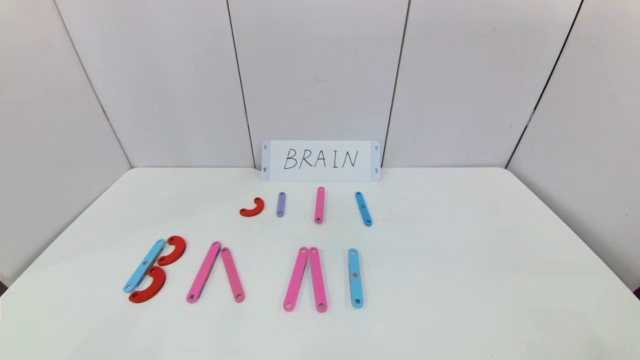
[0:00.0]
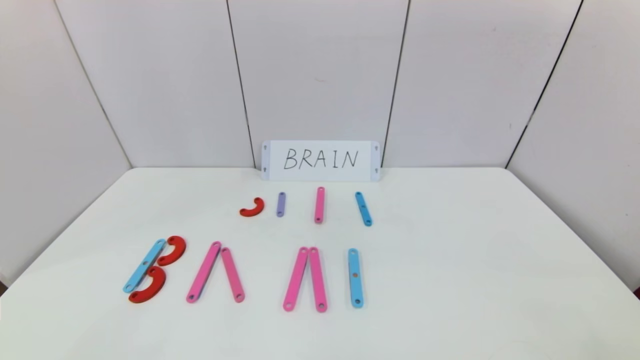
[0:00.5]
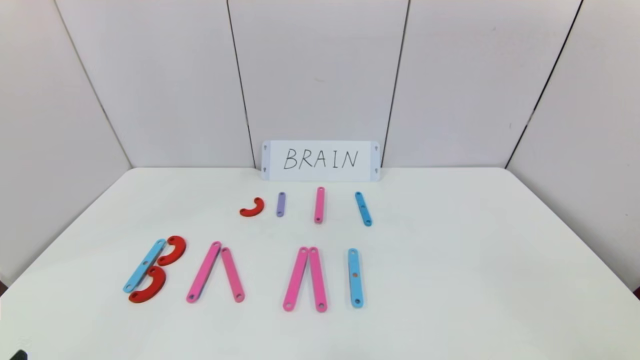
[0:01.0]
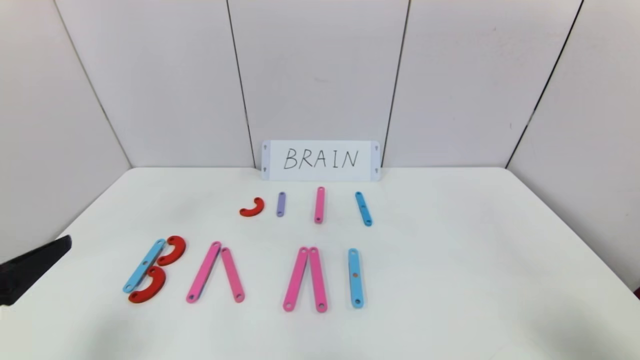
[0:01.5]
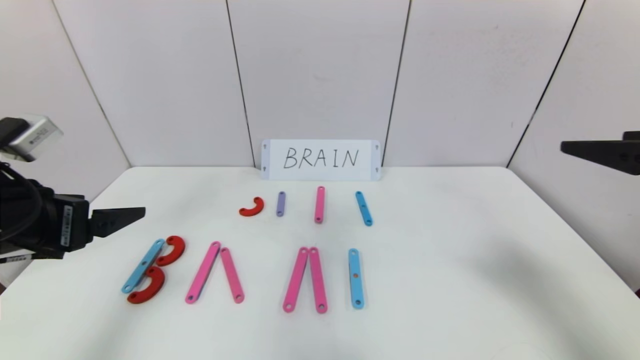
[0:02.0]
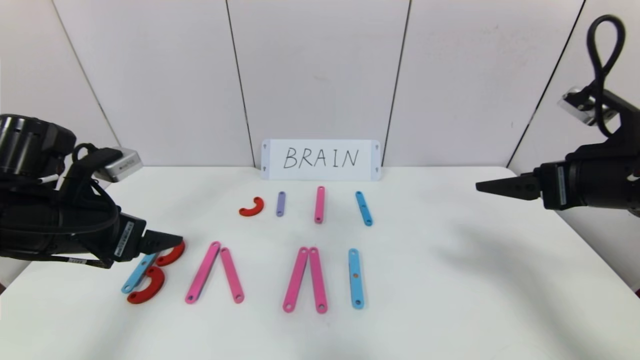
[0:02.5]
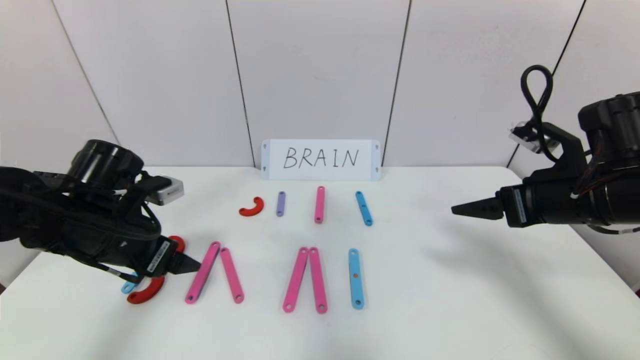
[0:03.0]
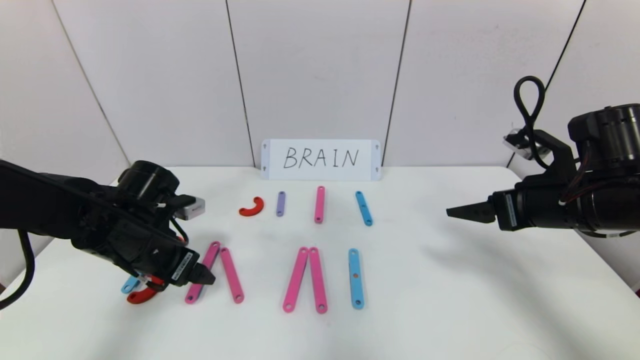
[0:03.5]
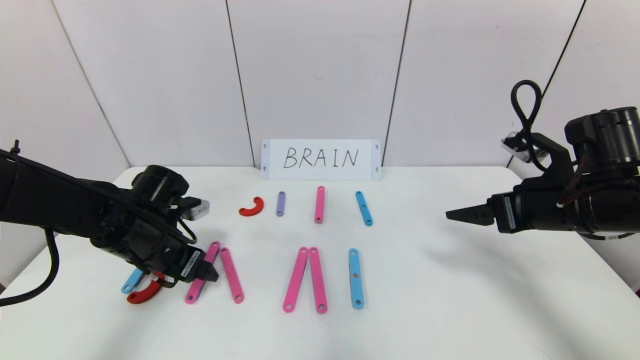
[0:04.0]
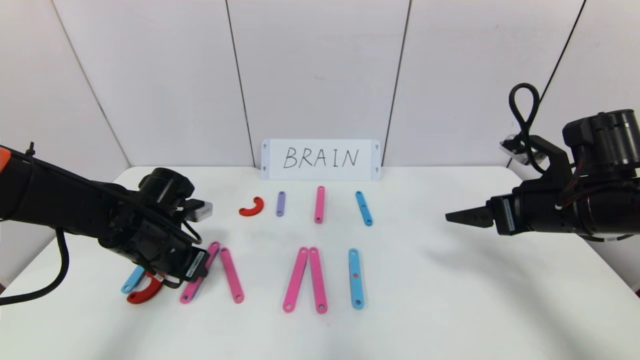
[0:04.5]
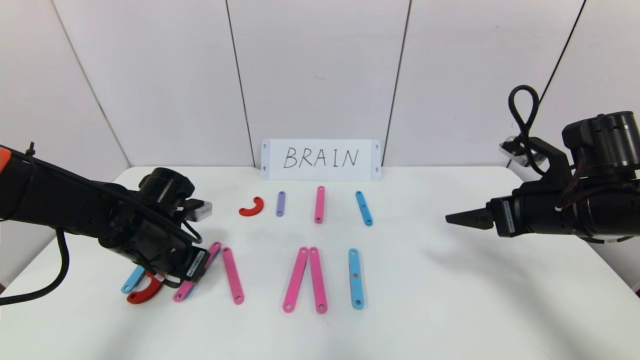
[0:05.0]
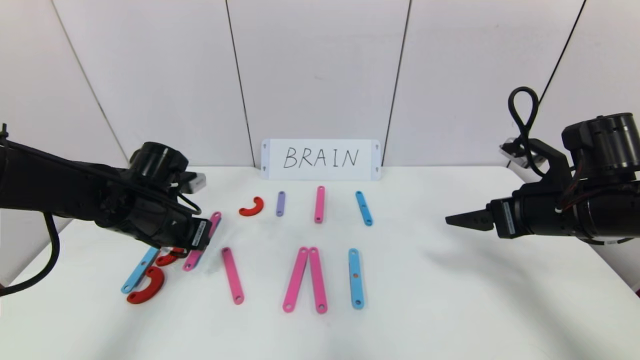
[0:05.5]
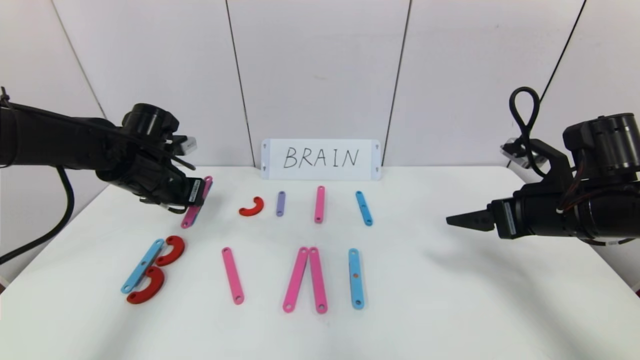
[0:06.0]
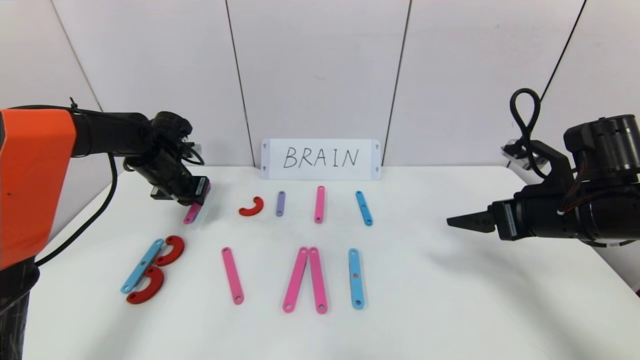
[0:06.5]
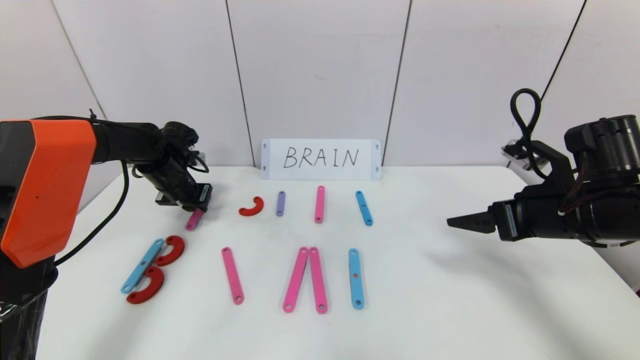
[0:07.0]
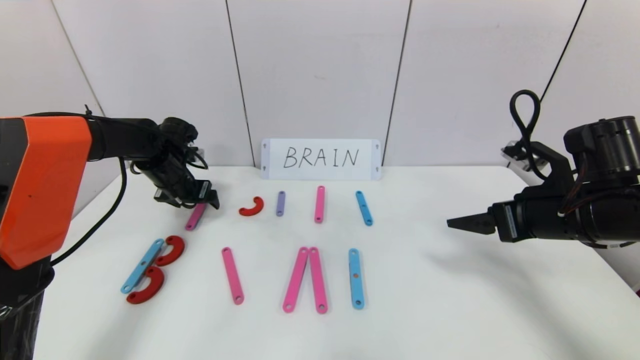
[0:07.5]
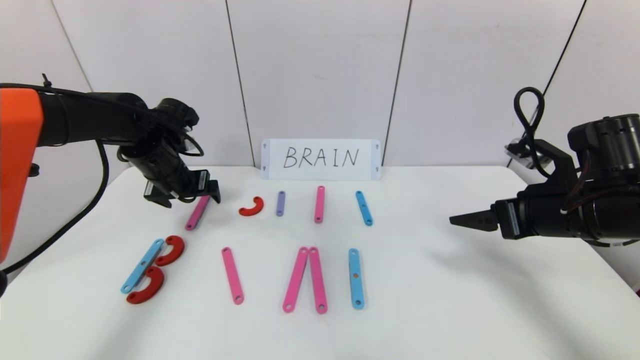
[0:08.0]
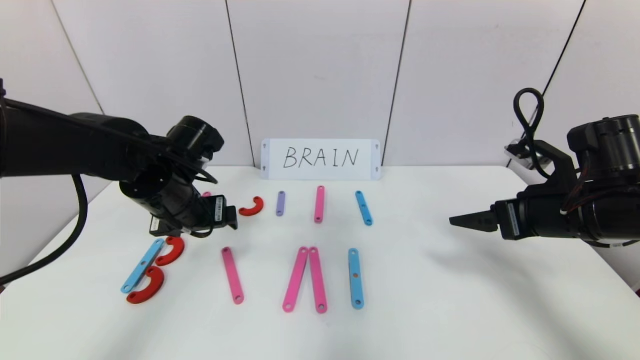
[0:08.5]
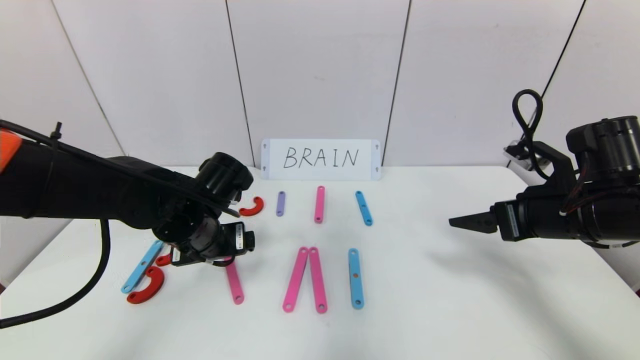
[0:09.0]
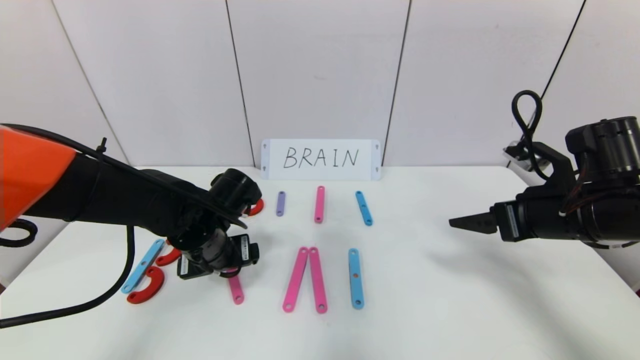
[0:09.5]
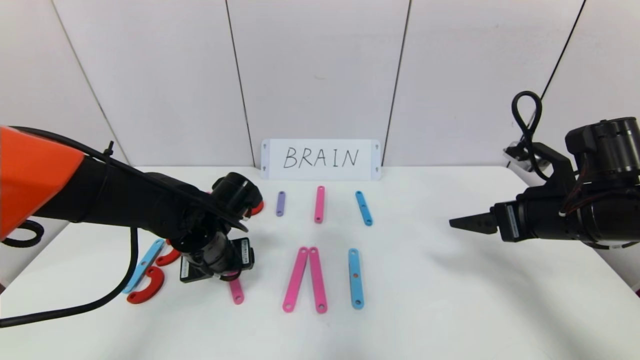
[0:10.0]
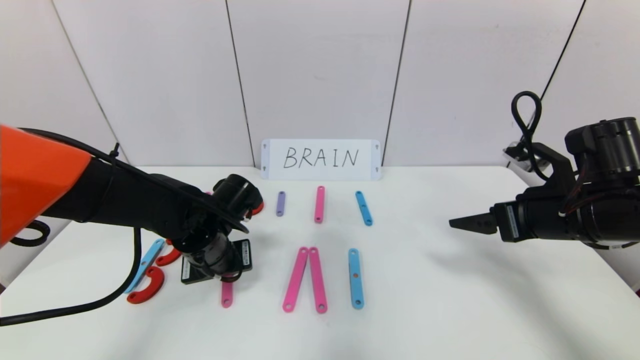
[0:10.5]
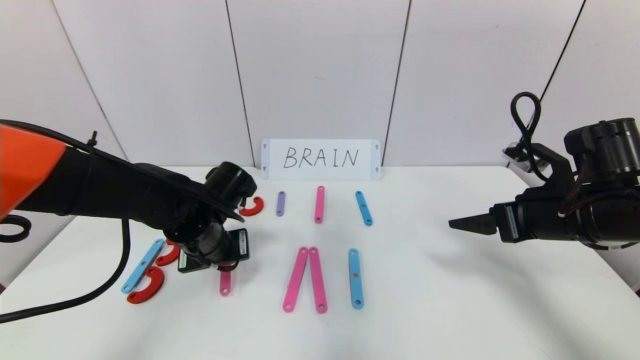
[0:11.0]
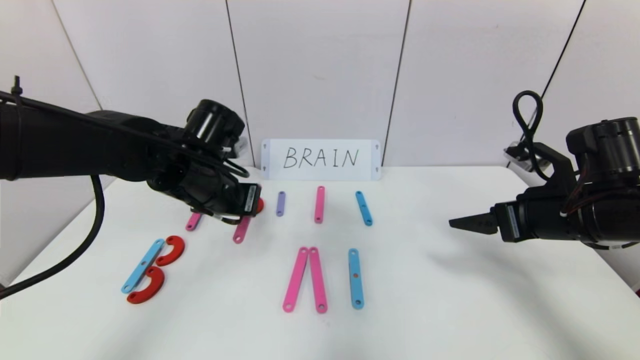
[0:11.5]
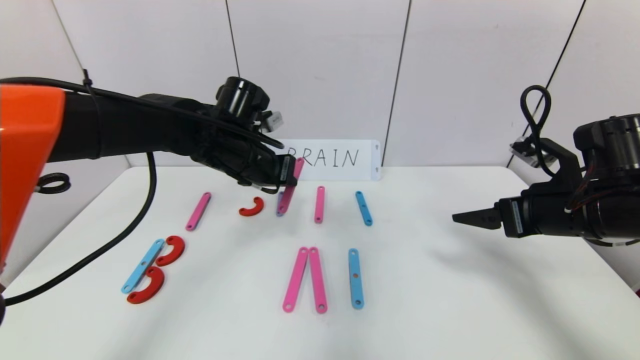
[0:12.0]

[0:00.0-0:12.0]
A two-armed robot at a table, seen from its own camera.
Task of the whole recording: rearrange the word baai as brain.
0:00.0 to 0:02.0: The left gripper is displaced forward and upward by some 25 cm; the right gripper goes about 30 cm upward and forward.
0:02.0 to 0:04.0: The left gripper shifts roughly 20 cm downward, forward and to the right. Meanwhile the right gripper travels downward and forward by some 15 cm.
0:04.0 to 0:06.0: The left gripper shifts some 10 cm forward and upward, and closes.
0:06.0 to 0:08.0: The left gripper goes forward and returns, some 10 cm each way, and opens.
0:08.0 to 0:10.0: The left gripper shifts about 15 cm backward, to the right and downward.
0:10.0 to 0:12.0: The left gripper moves upward and forward, some 15 cm, and closes its fingers.

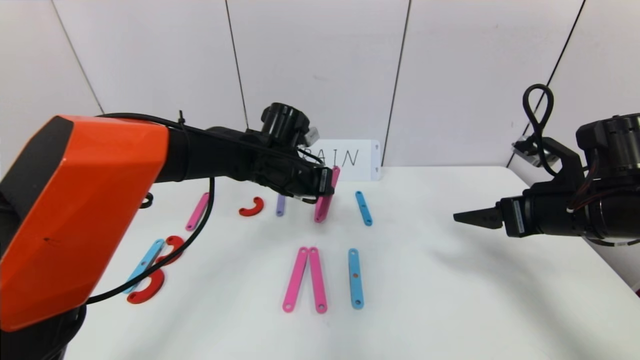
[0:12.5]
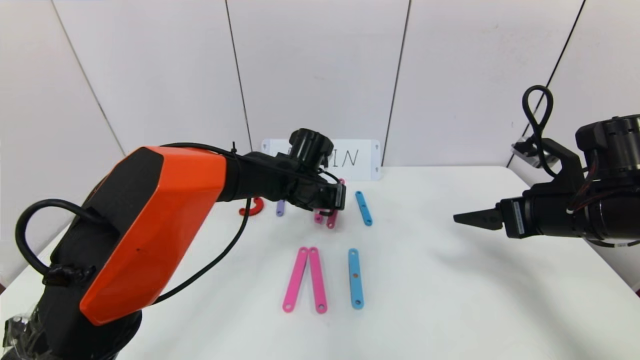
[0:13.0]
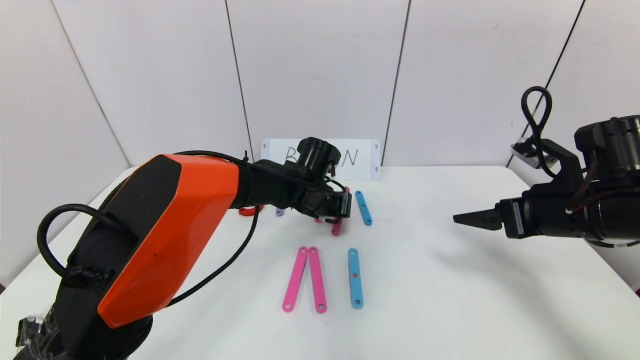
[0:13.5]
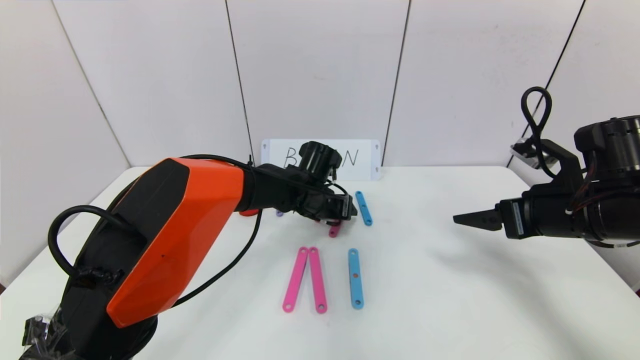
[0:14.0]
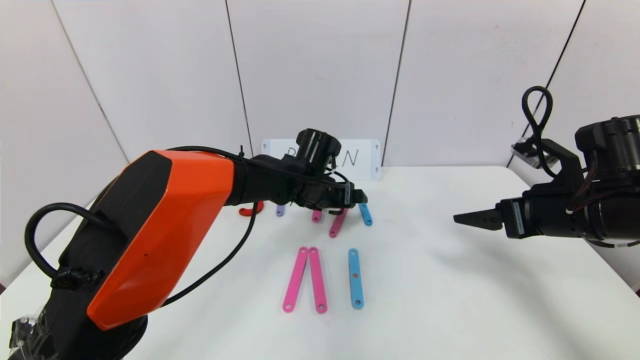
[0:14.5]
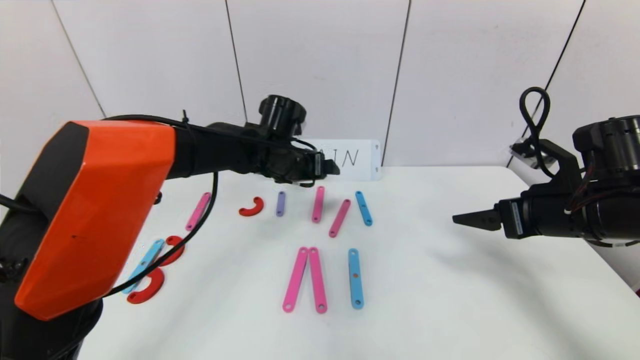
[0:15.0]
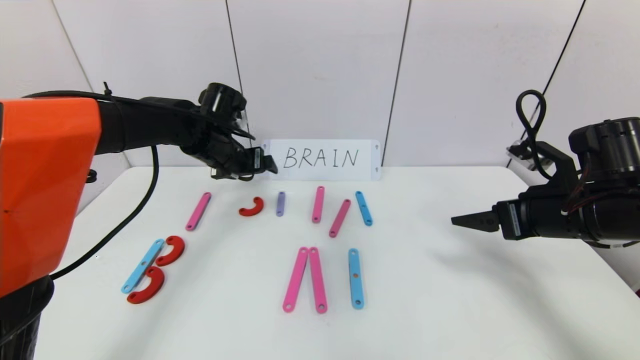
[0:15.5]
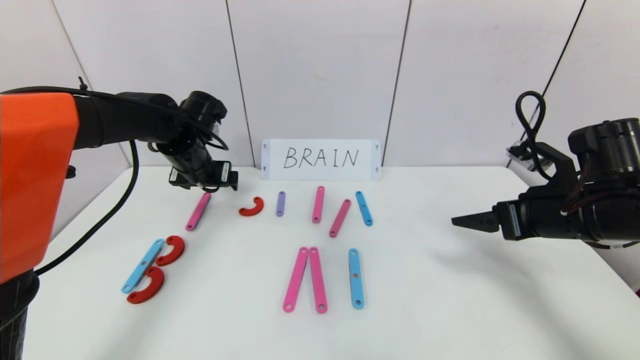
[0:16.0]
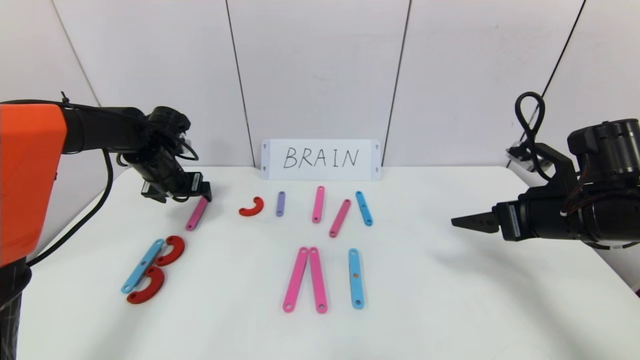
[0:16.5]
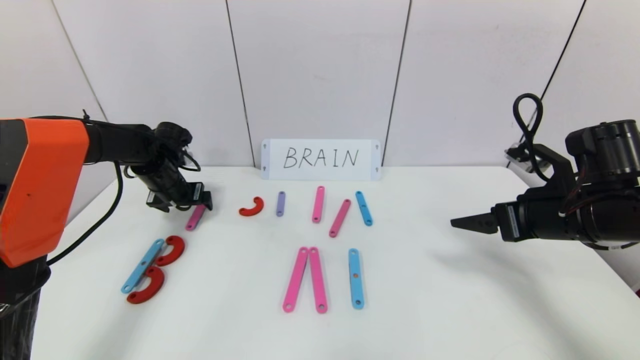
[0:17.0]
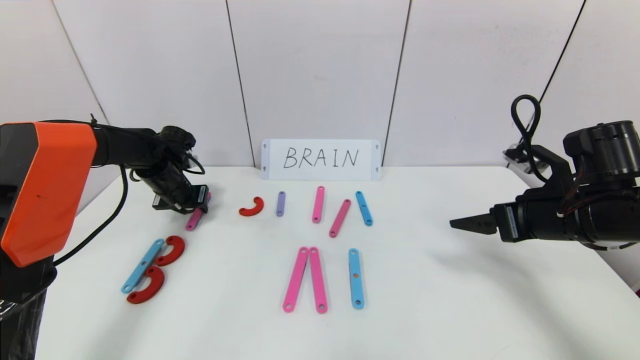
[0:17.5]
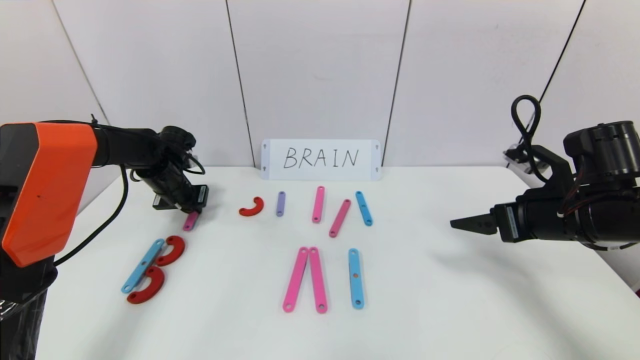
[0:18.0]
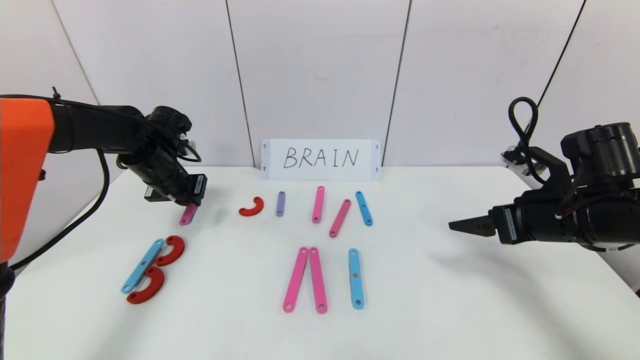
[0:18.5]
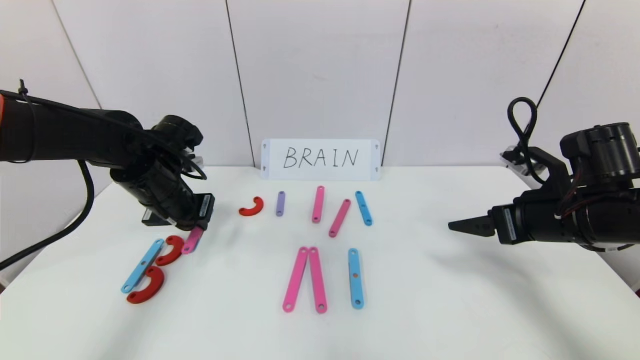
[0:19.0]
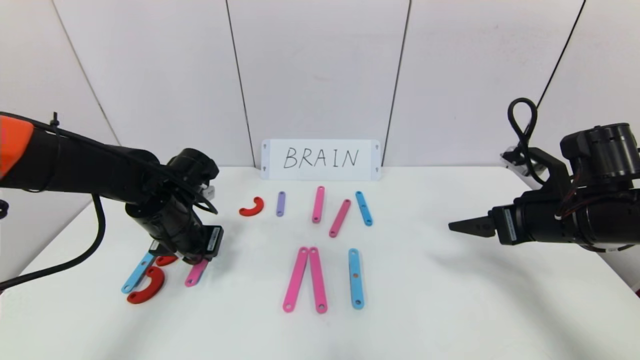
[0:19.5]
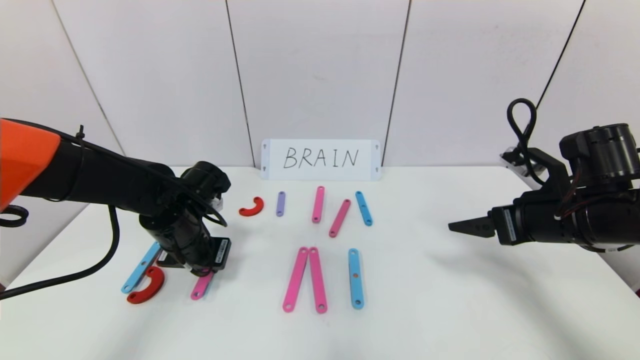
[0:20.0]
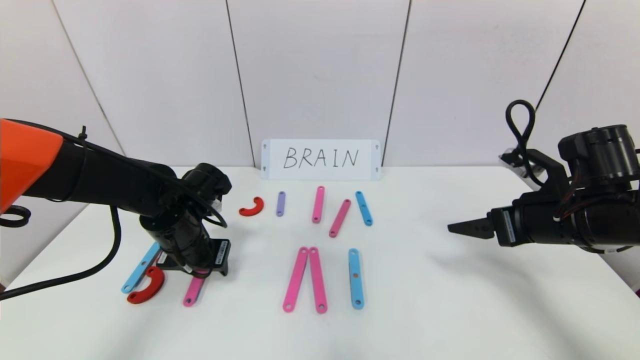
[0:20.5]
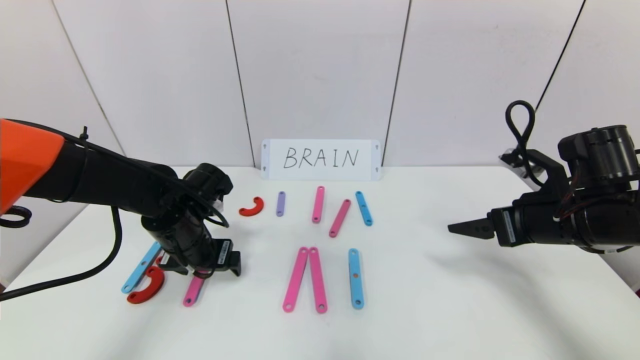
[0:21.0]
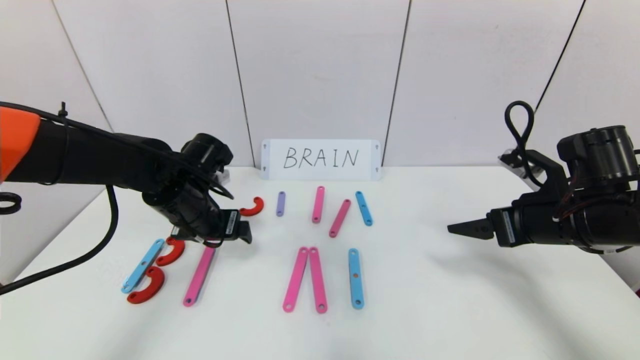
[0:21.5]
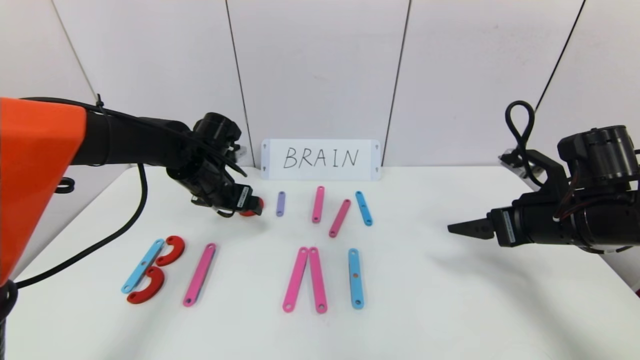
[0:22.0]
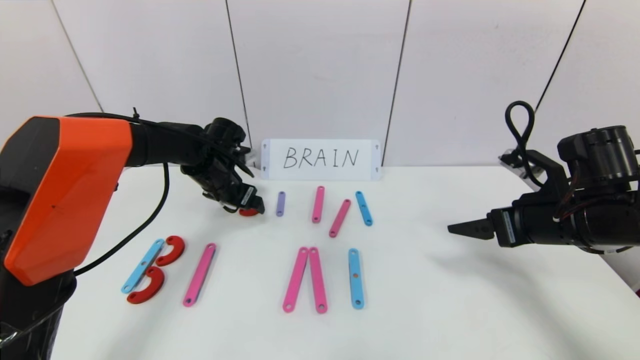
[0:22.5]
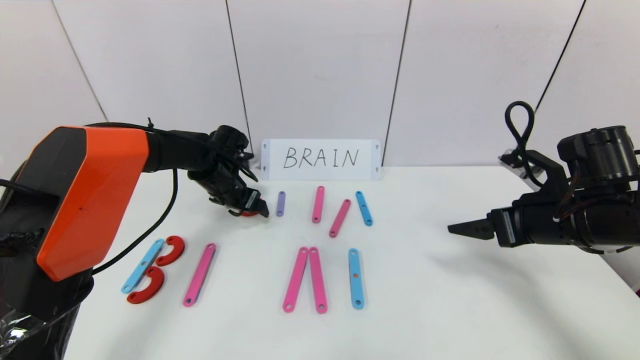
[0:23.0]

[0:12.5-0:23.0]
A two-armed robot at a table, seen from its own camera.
Task of the whole recording: rearrange the word baai as brain.
Step, 0:12.5 to 0:14.5: Disassemble the second character A.
0:12.5 to 0:14.5: The left gripper is displaced to the right by roughly 5 cm, and opens up.
0:14.5 to 0:16.5: The left gripper travels to the left by roughly 25 cm.
0:16.5 to 0:19.0: The left gripper is displaced backward and to the right by roughly 10 cm, and closes its fingers.
0:19.0 to 0:21.0: The left gripper heads downward, covering about 5 cm, and opens its fingers.
0:21.0 to 0:23.0: The left gripper goes about 15 cm forward.
